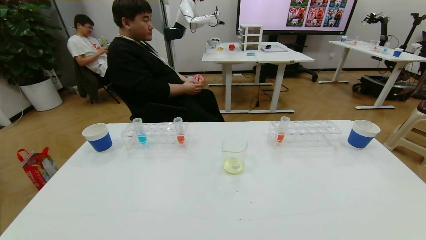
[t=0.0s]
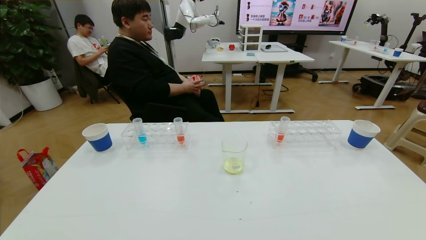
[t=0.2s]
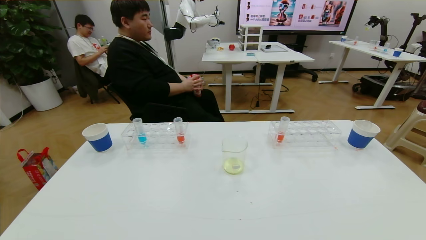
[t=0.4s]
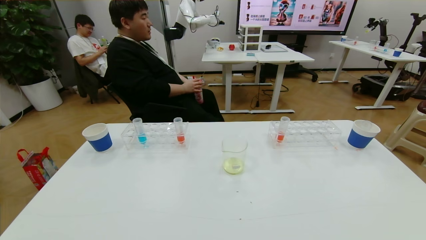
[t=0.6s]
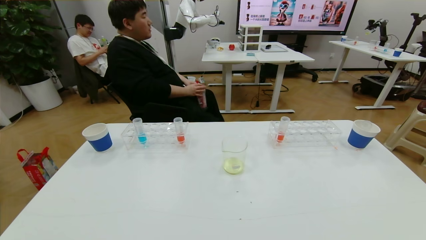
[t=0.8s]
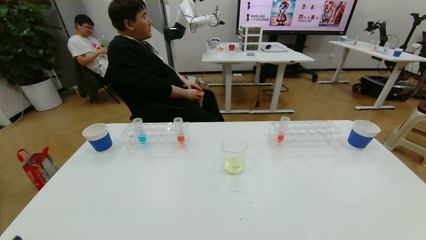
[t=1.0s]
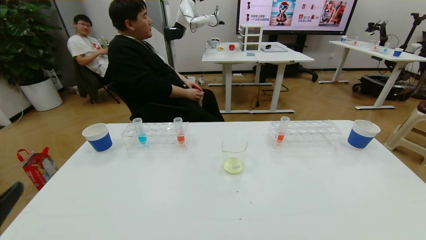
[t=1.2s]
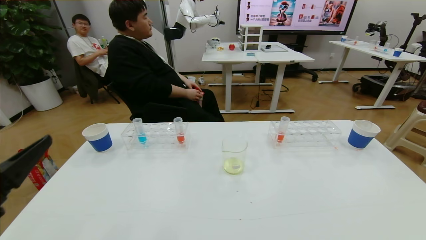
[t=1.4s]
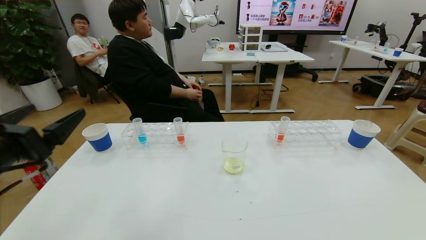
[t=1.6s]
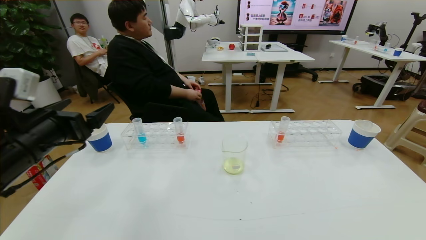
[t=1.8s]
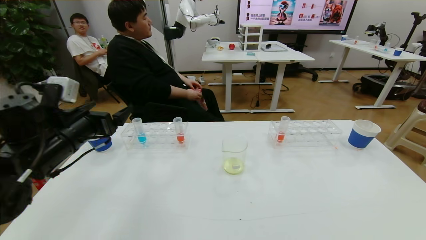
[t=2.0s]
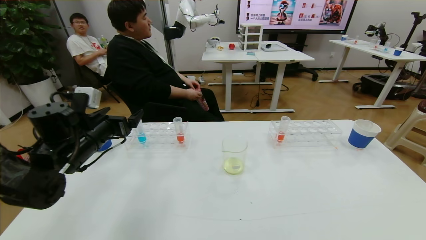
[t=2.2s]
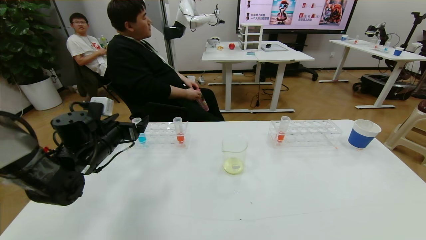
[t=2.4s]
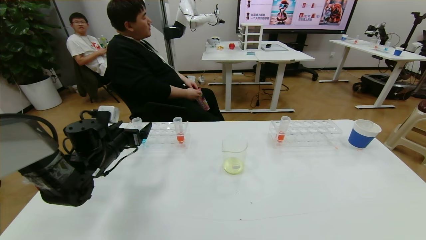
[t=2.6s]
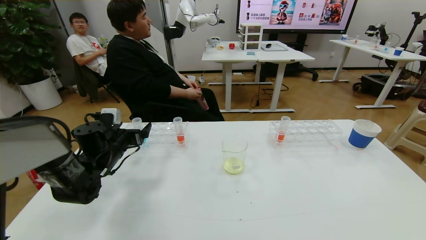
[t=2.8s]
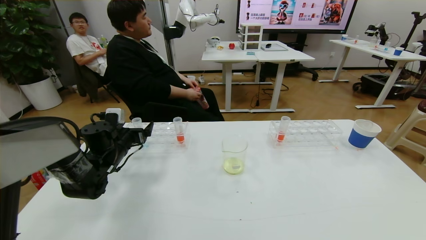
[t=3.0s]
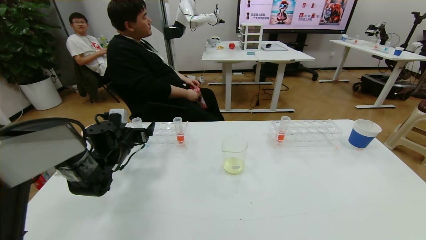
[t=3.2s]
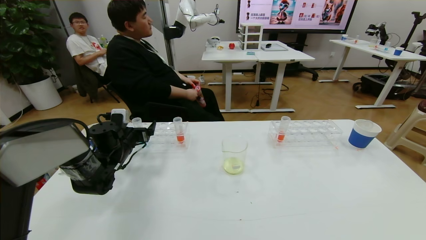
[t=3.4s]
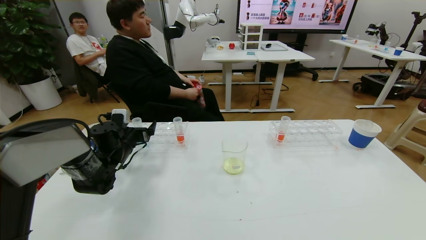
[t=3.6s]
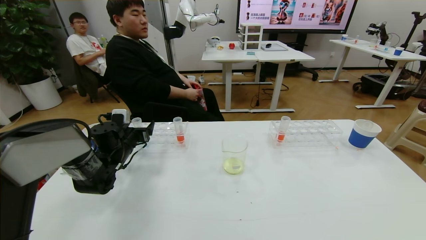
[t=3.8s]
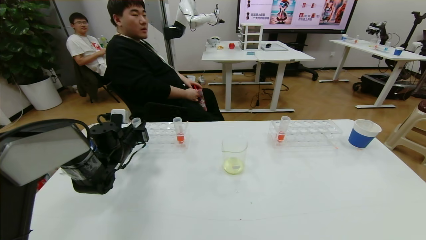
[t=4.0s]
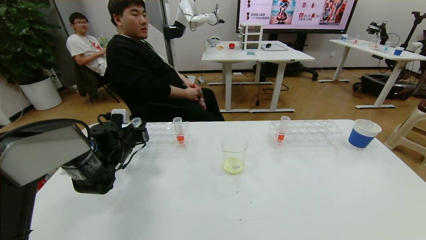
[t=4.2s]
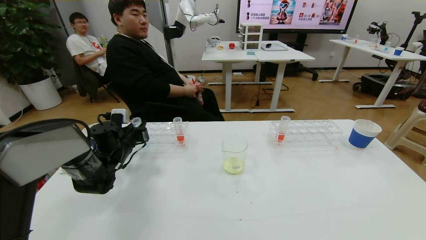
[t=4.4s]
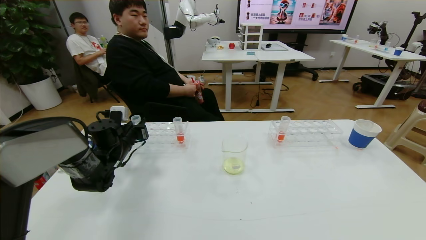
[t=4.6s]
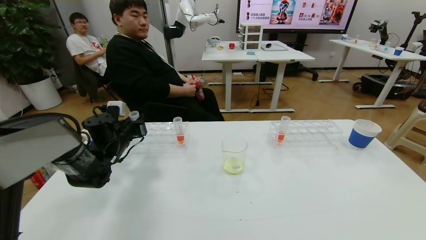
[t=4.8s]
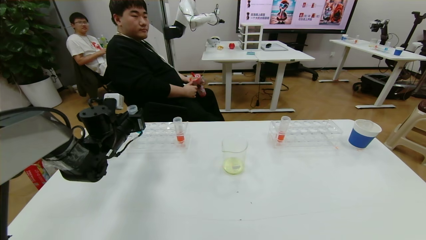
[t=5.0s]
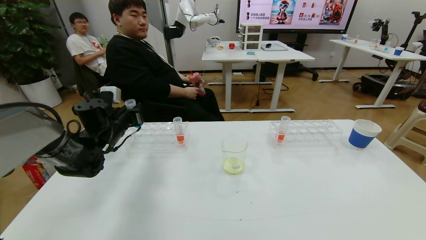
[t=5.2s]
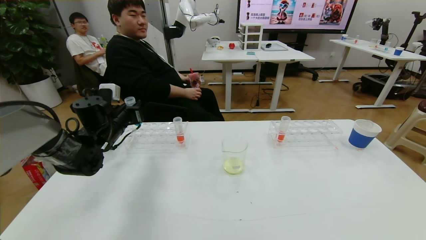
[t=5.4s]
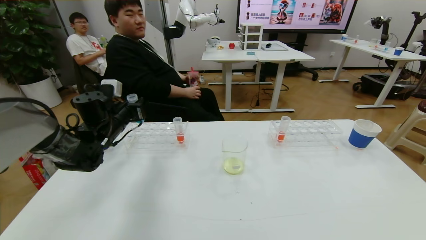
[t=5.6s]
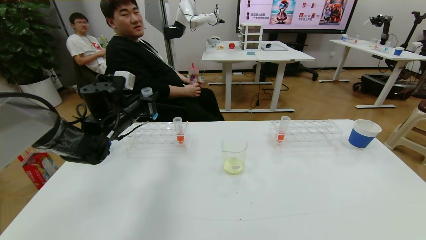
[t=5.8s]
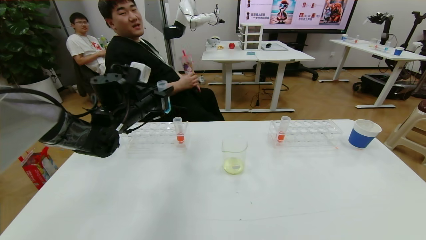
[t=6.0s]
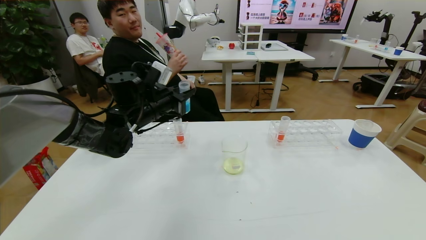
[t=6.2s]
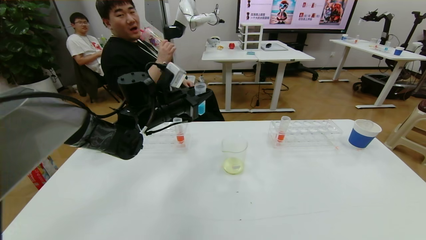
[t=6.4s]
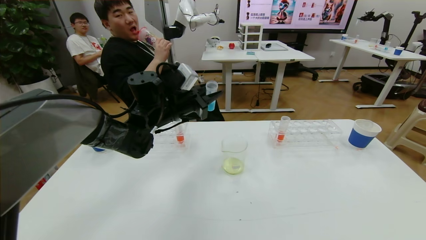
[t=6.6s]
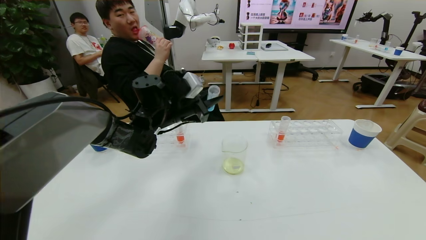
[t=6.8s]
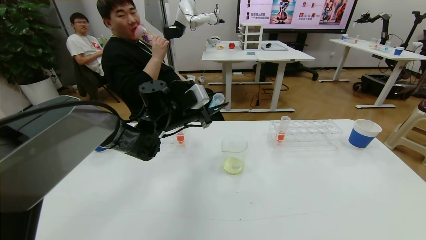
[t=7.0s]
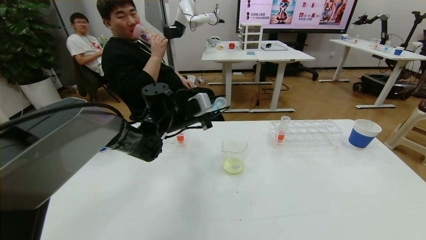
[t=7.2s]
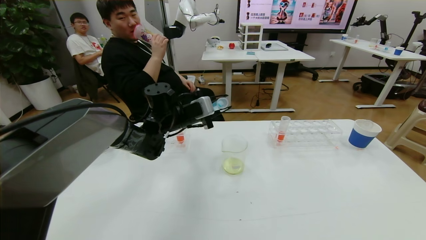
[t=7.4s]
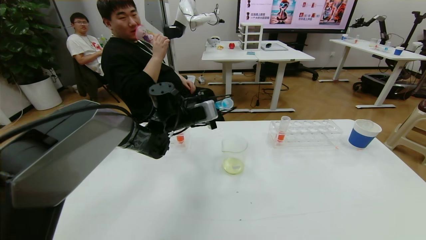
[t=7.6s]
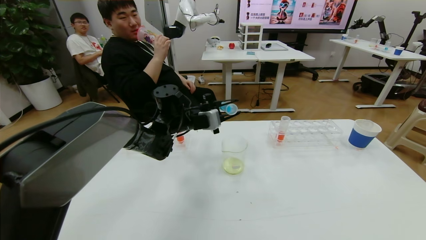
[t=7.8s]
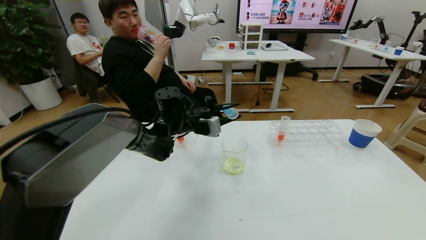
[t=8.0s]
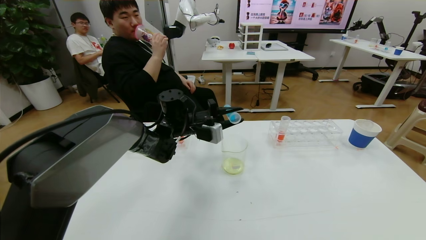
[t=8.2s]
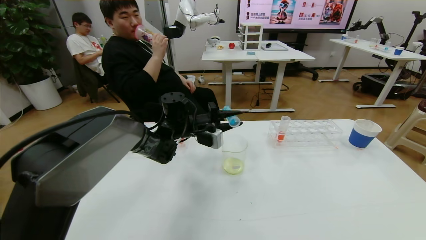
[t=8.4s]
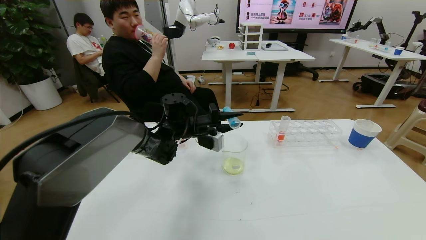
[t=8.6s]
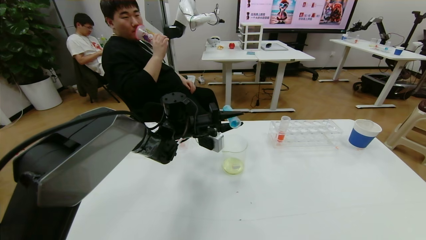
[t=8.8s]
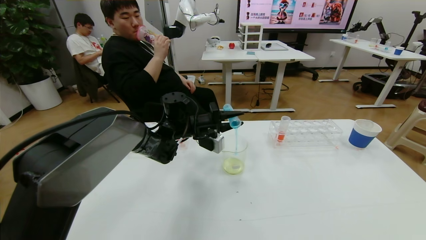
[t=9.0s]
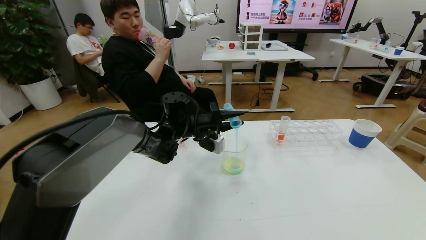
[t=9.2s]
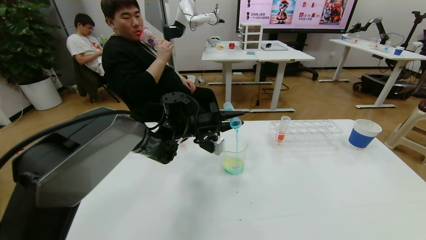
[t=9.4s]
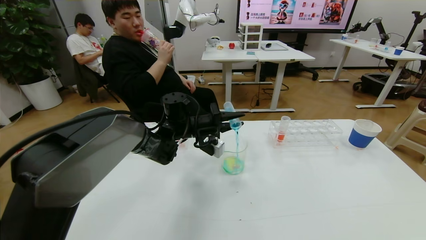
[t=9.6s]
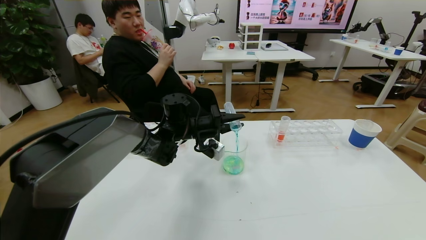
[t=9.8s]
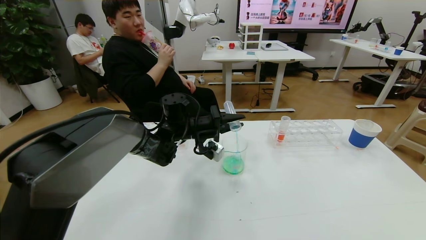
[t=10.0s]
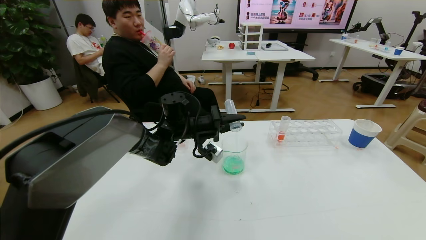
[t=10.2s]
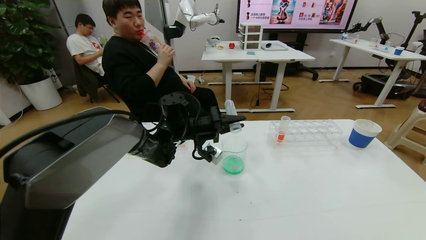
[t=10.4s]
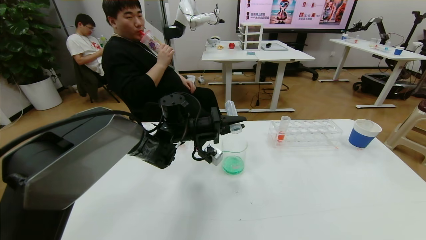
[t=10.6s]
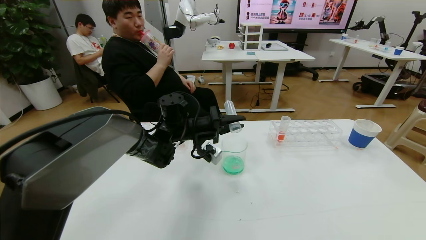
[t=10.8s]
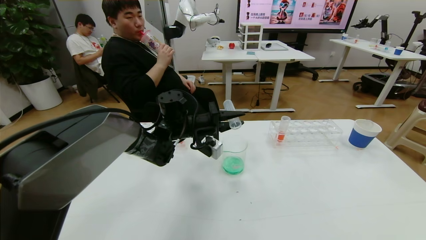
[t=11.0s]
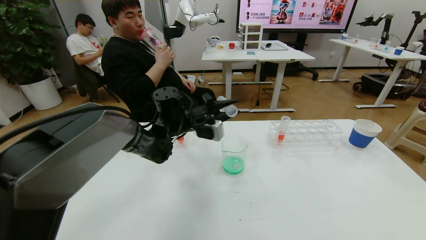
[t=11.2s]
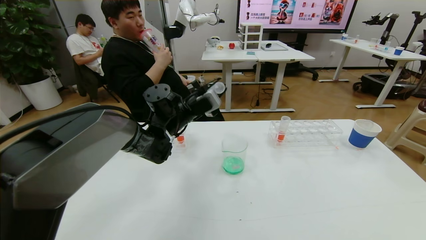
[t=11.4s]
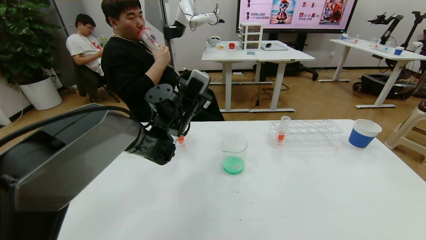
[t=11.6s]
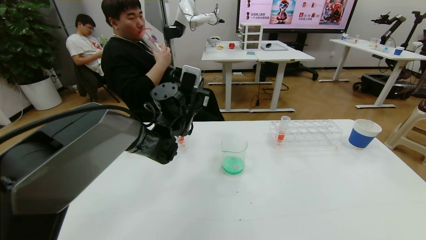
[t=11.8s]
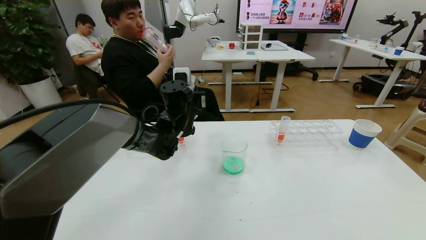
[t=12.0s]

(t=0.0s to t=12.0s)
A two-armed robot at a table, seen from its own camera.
Task of the whole recording: pick up the test tube with yellow pigment and the test tube with blue pigment by grippers and pour them into the beaker.
t=0.0s - t=1.6s: The left gripper goes approximately 25 cm forward and upward.
t=1.6s - t=3.0s: The left gripper heads forward and downward, covering approximately 30 cm.
t=3.0s - t=4.4s: The left gripper closes its fingers.
t=4.4s - t=6.0s: The left gripper goes about 15 cm upward and to the right.
t=6.0s - t=7.6s: The left gripper is displaced to the right by approximately 10 cm.

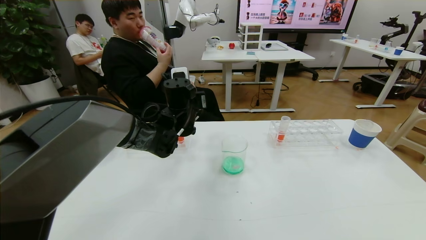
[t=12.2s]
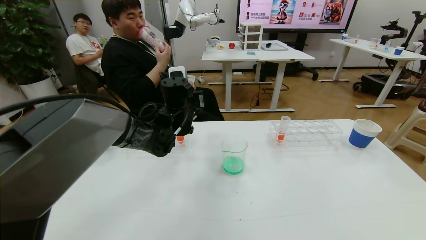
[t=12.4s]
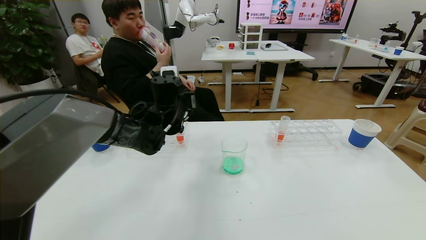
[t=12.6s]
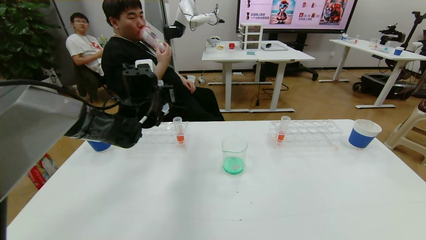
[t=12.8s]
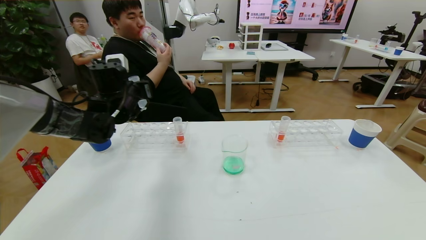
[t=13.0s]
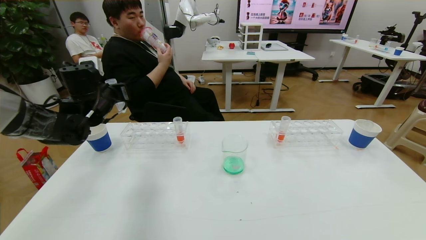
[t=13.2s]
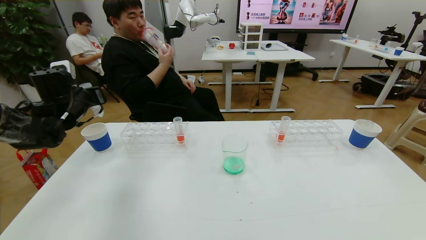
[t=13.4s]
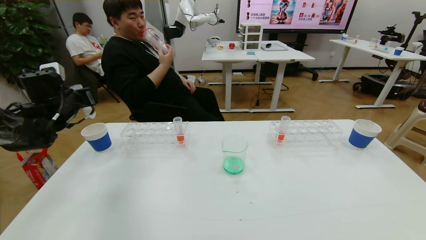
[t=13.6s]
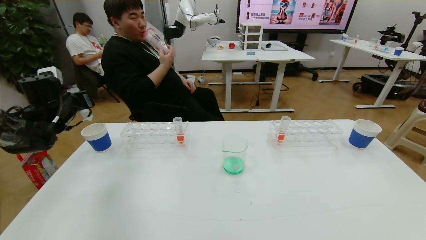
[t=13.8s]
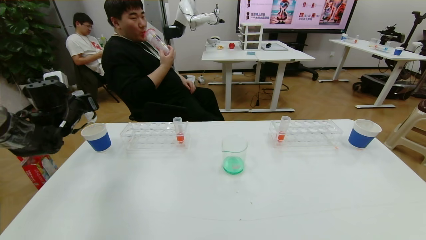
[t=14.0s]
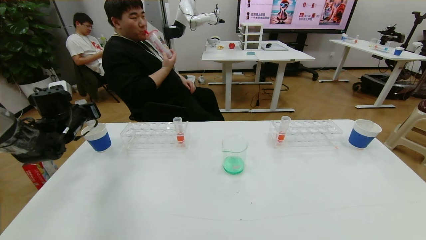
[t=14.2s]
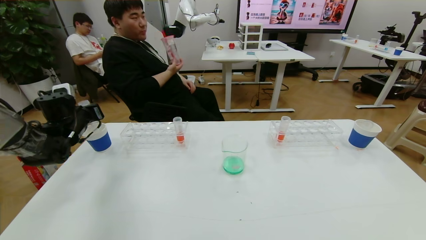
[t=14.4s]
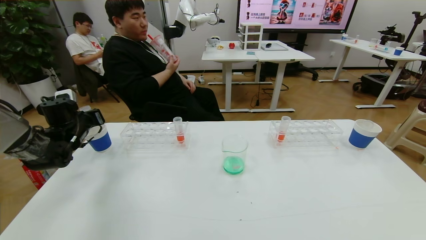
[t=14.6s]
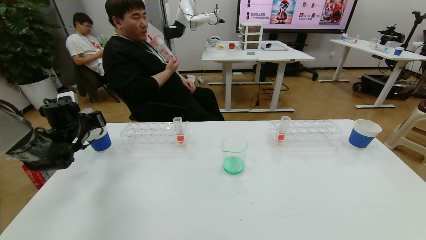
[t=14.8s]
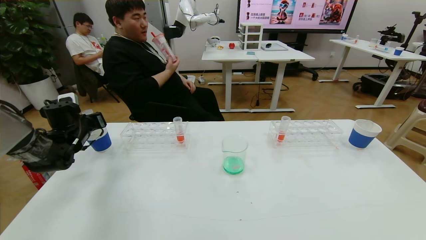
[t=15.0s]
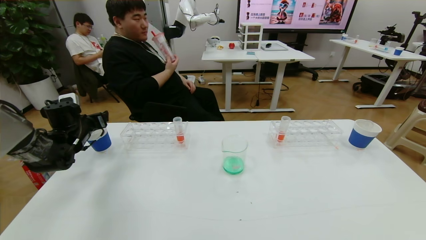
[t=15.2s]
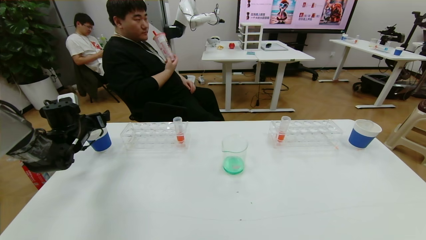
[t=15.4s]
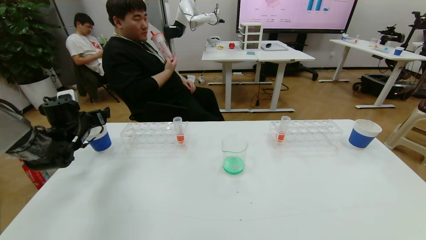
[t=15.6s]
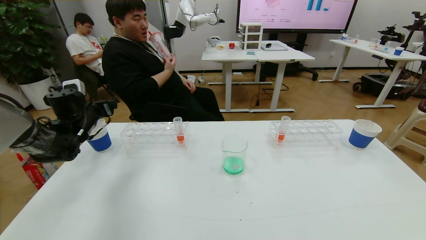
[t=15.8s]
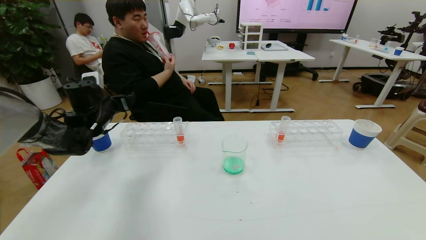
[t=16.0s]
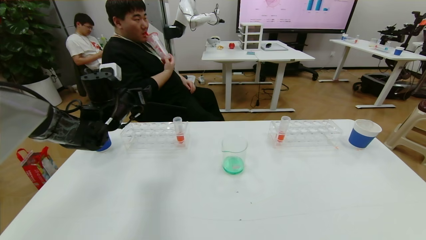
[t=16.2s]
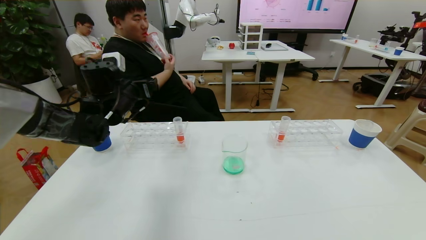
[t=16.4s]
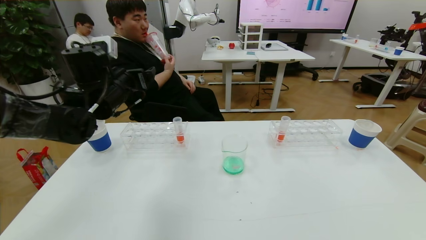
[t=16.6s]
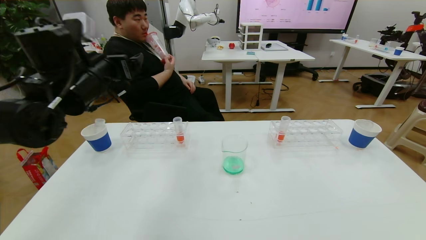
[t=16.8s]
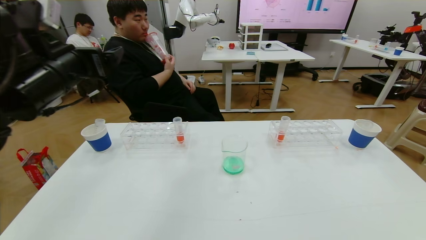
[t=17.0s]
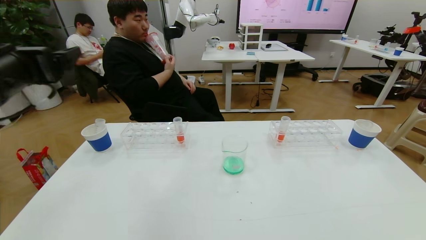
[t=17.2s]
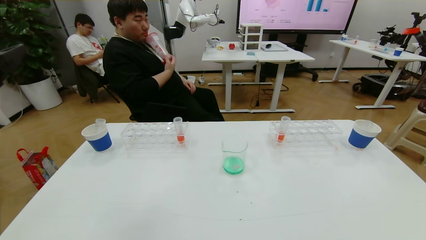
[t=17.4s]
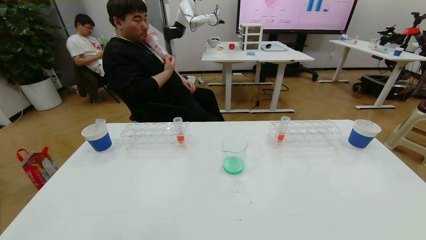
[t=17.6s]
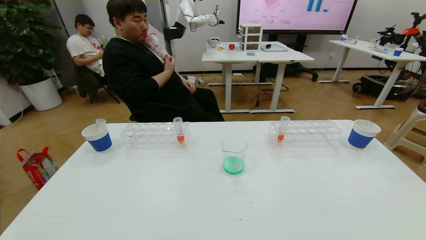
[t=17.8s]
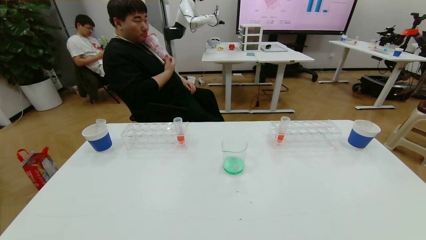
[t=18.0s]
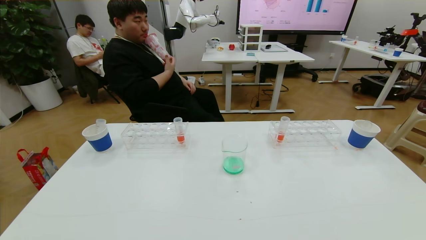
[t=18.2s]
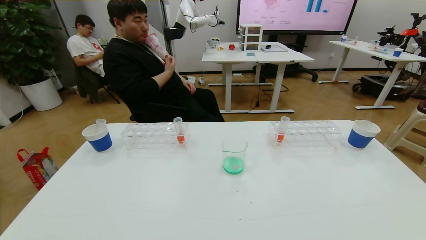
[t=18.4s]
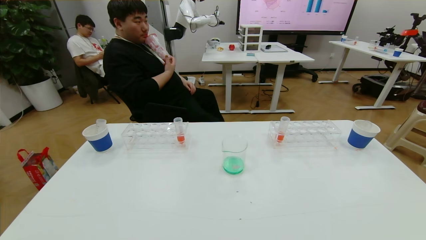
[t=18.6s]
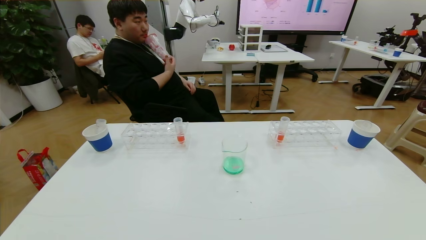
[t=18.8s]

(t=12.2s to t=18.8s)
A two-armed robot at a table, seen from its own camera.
Task of the whole recording: pick up the test tube with yellow pigment and the test tube with blue pigment by grippers and pour them into the beaker.
t=12.2s - t=13.8s: The left gripper heads to the left, covering roughly 30 cm.
t=13.8s - t=15.4s: The left gripper goes some 5 cm downward, and opens up.
t=15.4s - t=17.2s: The left gripper heads upward, backward and to the right, covering approximately 30 cm.
t=17.2s - t=18.8s: The left gripper is displaced backward and downward by approximately 30 cm.
